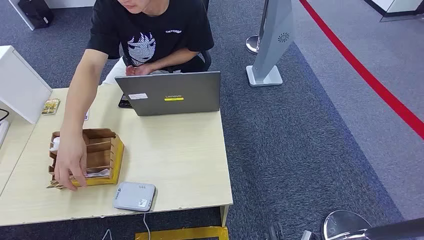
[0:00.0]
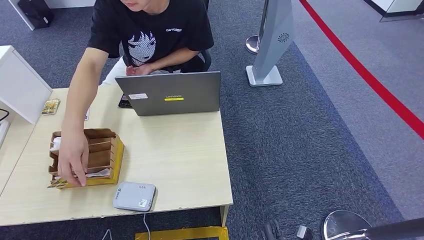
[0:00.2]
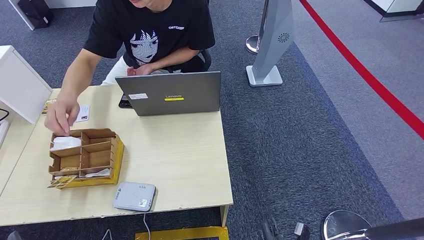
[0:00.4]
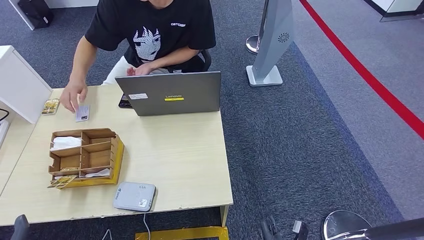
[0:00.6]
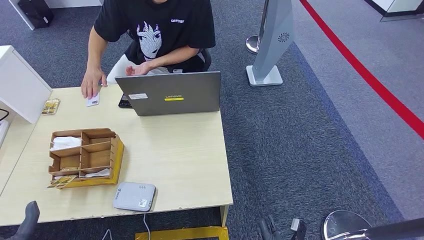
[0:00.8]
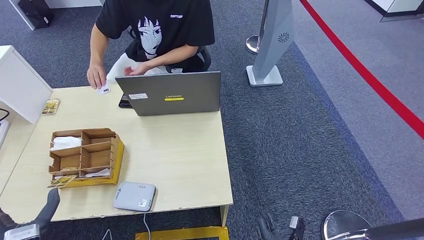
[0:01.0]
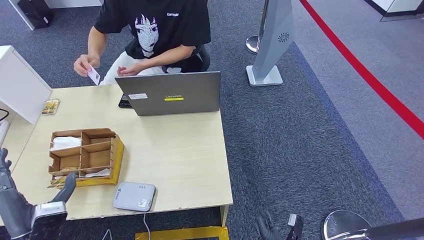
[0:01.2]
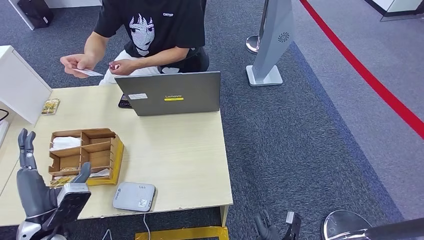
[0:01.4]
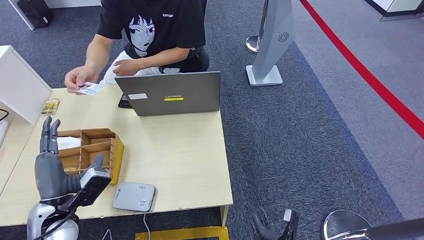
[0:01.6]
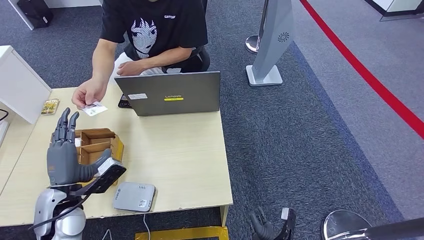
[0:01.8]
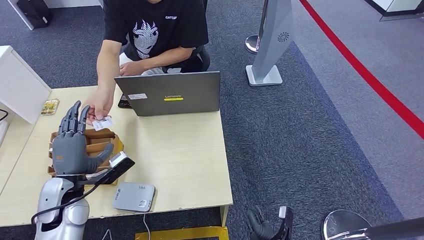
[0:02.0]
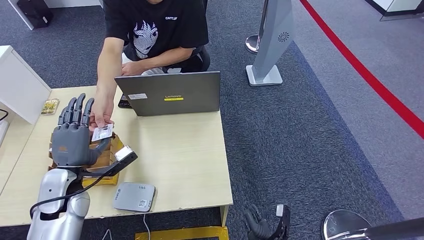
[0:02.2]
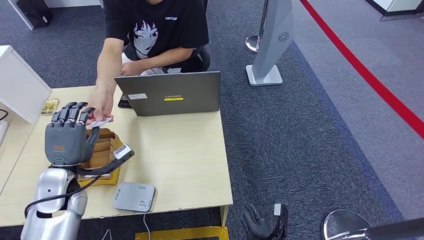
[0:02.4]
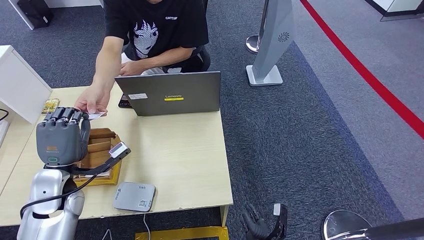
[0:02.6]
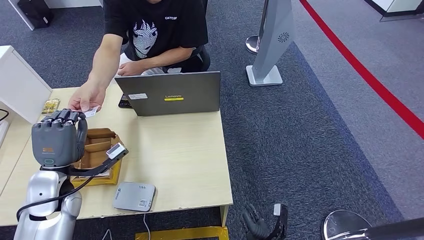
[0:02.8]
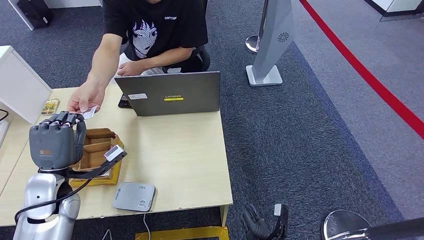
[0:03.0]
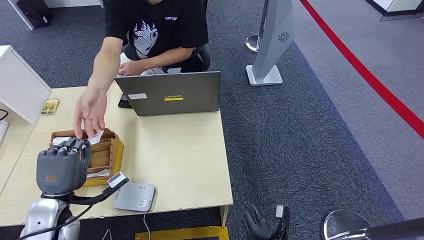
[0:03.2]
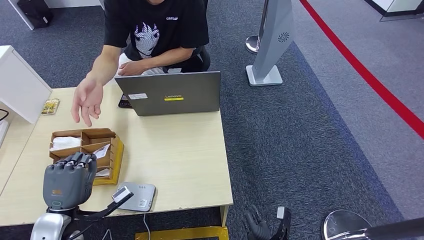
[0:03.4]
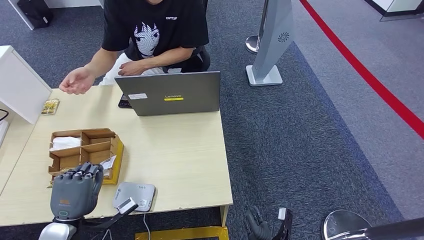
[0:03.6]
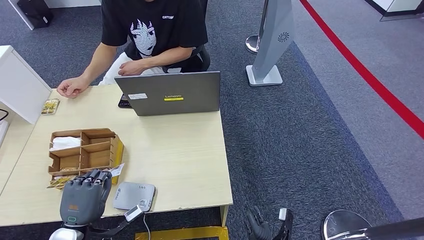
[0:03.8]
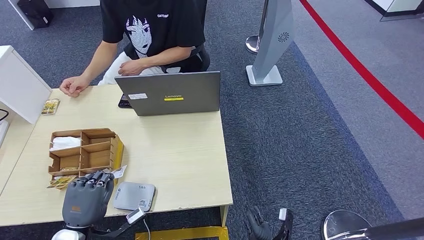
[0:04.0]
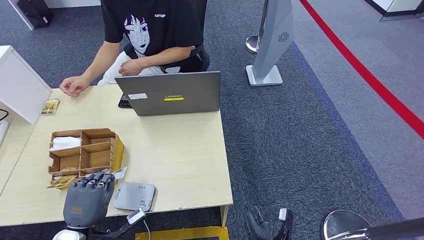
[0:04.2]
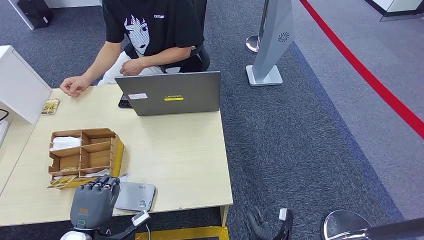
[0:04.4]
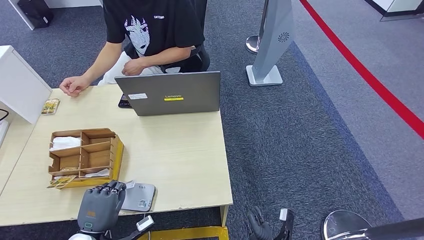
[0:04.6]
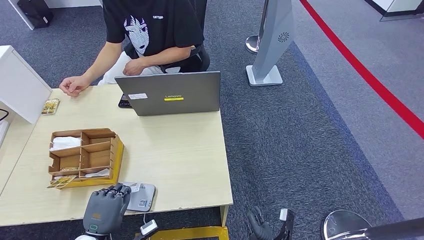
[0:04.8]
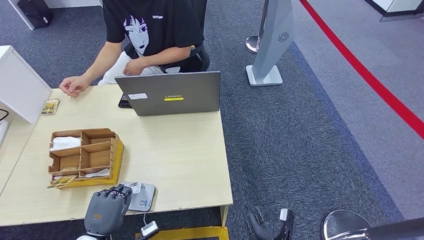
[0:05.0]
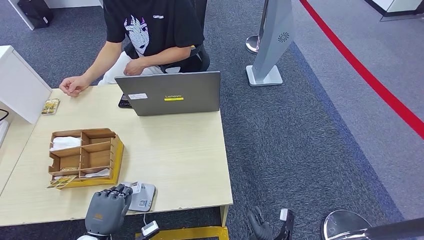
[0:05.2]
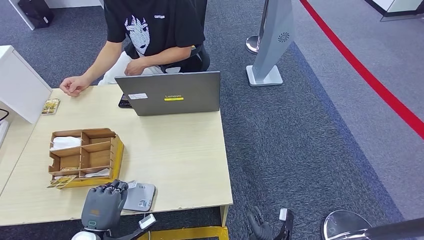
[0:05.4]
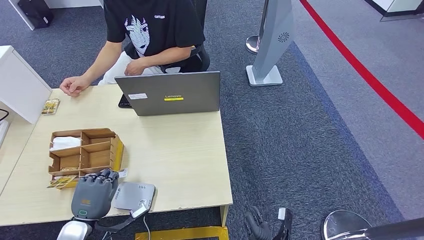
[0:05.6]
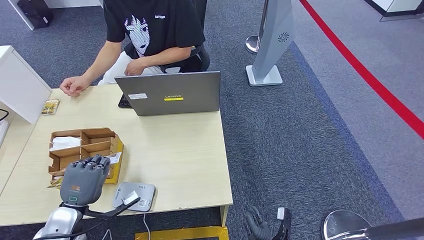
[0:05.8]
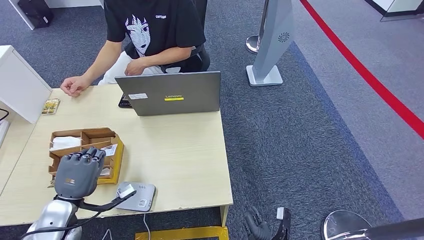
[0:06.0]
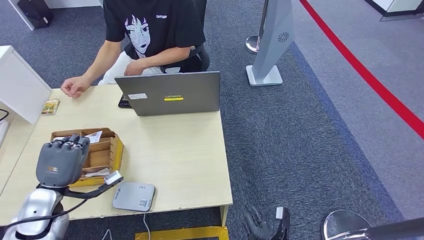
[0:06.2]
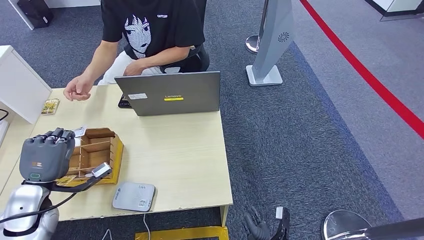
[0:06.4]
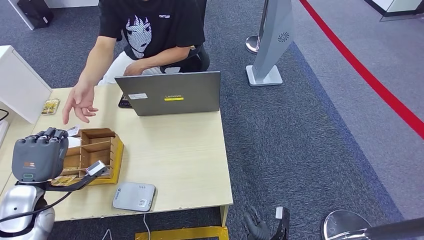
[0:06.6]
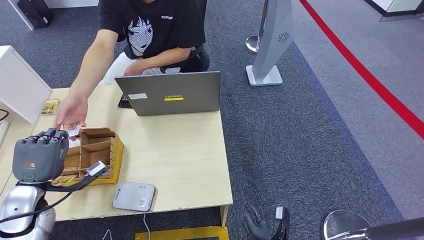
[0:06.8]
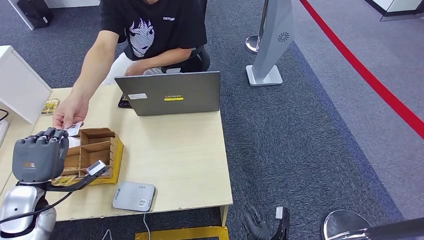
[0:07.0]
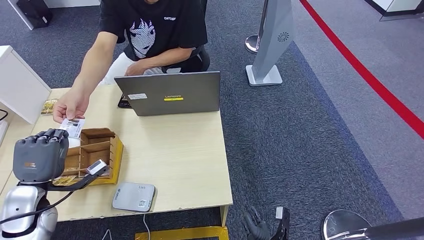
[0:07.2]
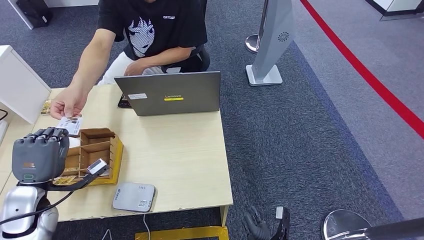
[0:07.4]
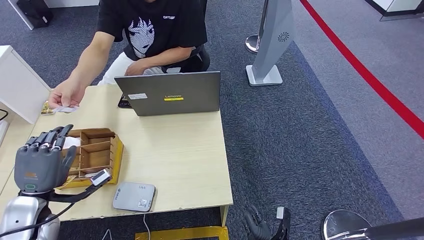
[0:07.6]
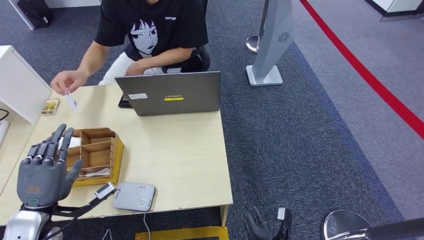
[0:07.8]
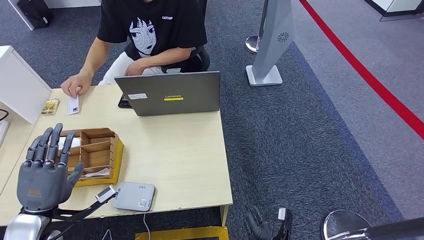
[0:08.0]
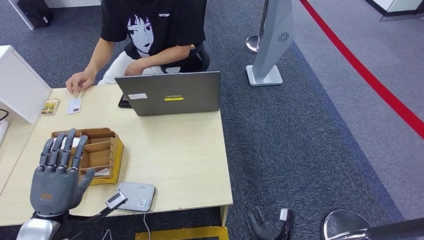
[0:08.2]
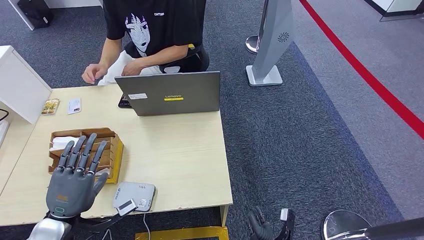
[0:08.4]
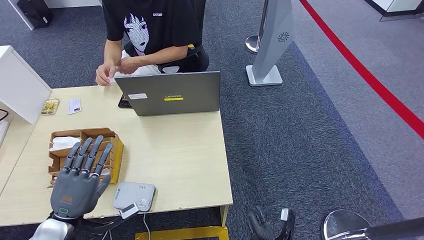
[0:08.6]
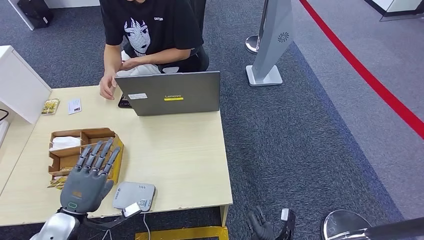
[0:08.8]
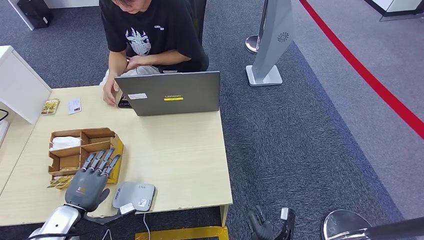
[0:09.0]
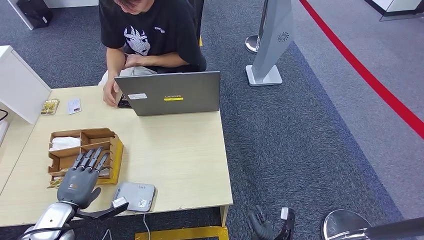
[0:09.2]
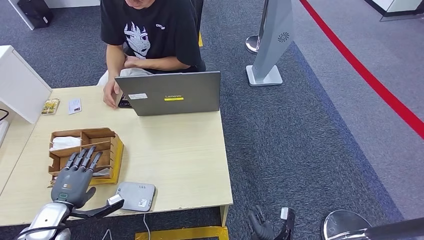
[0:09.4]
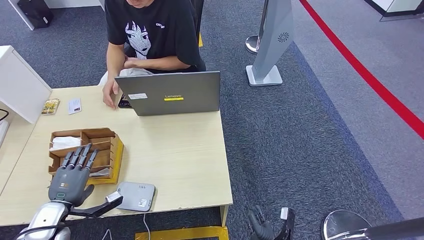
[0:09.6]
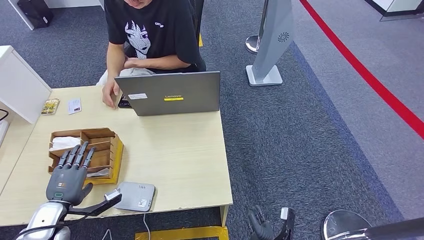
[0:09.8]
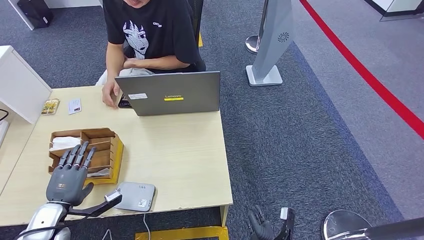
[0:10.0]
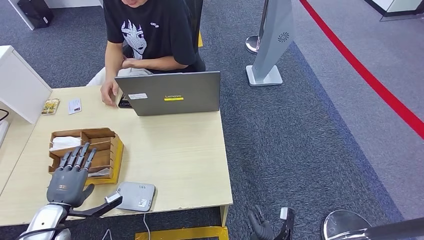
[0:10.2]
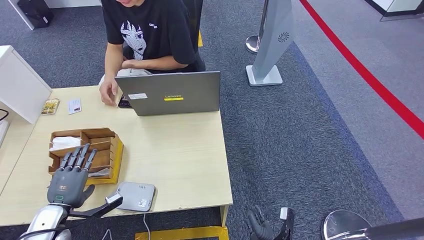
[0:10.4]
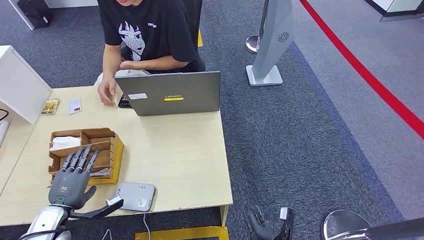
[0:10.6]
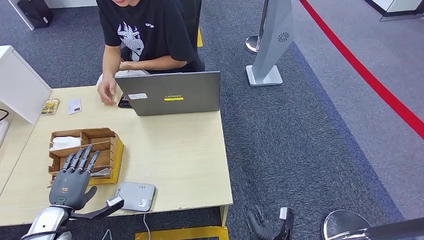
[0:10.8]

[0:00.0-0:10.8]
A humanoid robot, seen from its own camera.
Step, 0:00.0 to 0:03.4: Take the ID card from the person's hand.
Step, 0:03.6 to 0:05.8: Place the ID card on the card reader.
Step, 0:06.0 to 0:08.4: Hand the ID card to the person.
0:01.6 to 0:03.0: The left hand goes approximately 5 cm forward.
0:03.0 to 0:04.6: The left hand travels downward and backward by about 15 cm.
0:04.6 to 0:06.2: The left hand travels forward, upward and to the left by approximately 15 cm.
0:06.2 to 0:07.8: The hands make only small movements.
0:07.8 to 0:09.2: The left hand moves downward, approximately 10 cm.
0:09.2 to 0:10.8: The hands stay close to where they were, moving slightly.

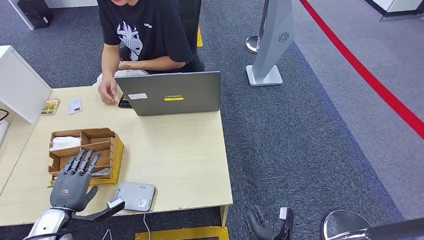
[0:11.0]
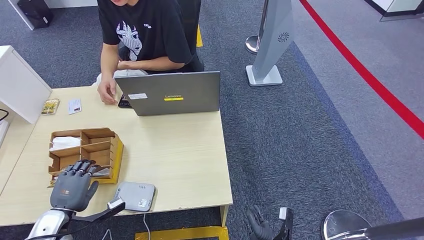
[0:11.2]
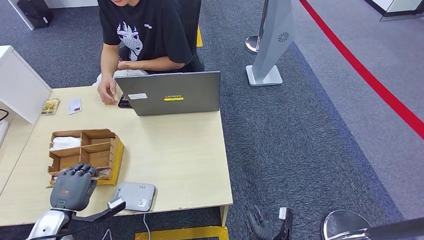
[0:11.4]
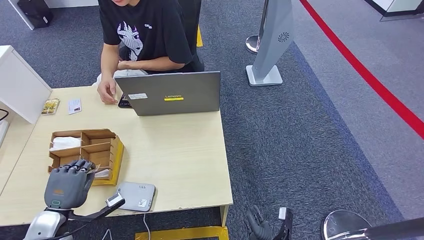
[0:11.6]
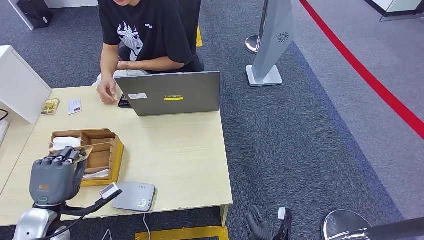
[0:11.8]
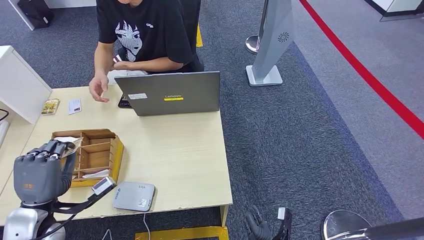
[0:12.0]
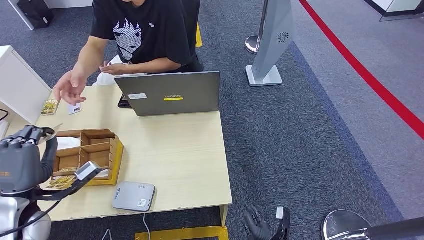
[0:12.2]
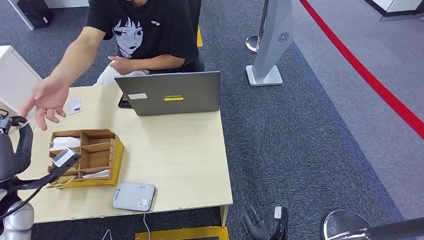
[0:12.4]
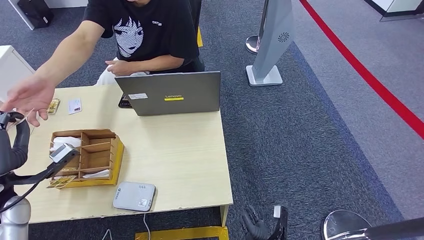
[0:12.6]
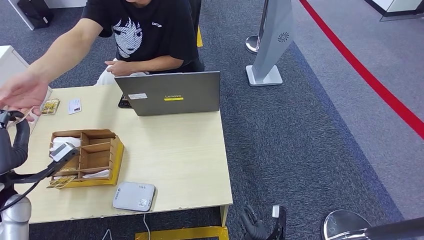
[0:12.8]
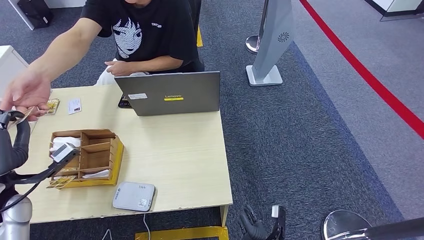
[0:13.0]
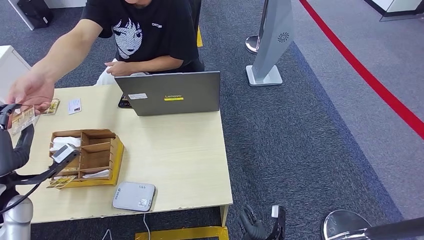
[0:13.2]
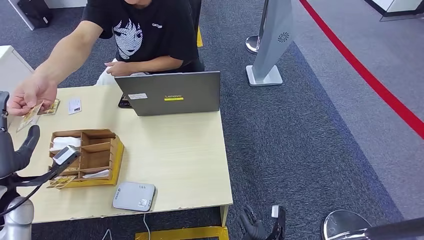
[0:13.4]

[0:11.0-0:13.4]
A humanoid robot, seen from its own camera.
Step, 0:12.4 to 0:13.2: Hand the room key to the person.
0:11.0 to 0:12.2: The left hand heads upward, covering about 15 cm.
0:12.2 to 0:13.4: The hands stay close to where they were, moving slightly.

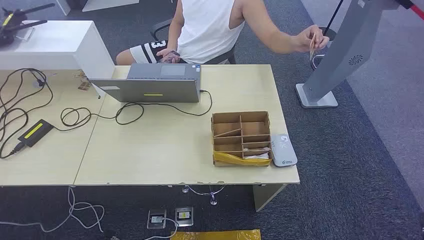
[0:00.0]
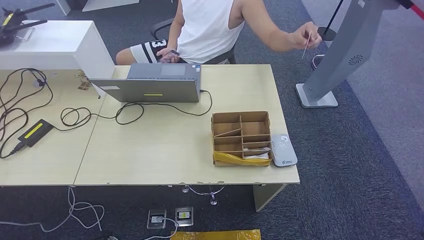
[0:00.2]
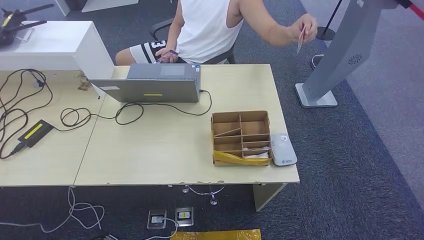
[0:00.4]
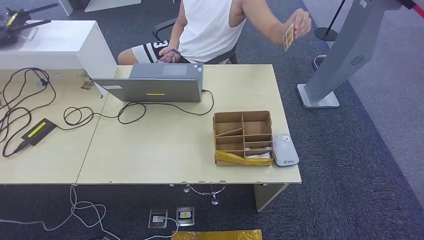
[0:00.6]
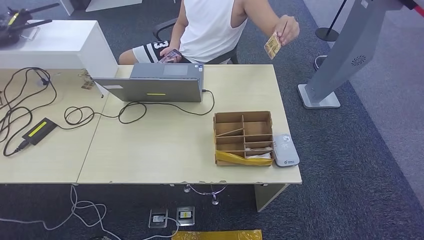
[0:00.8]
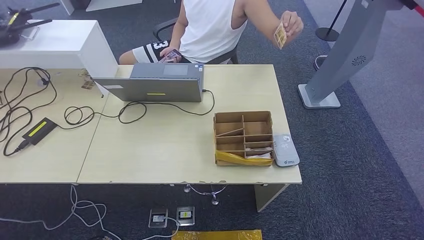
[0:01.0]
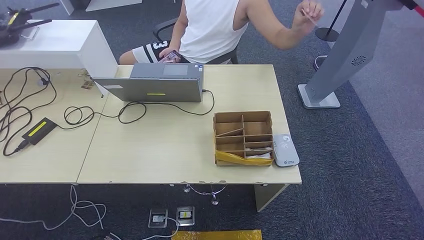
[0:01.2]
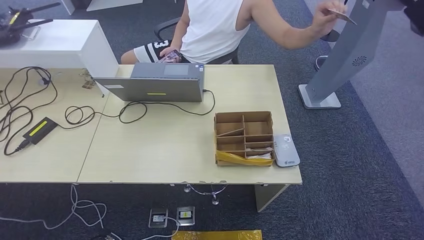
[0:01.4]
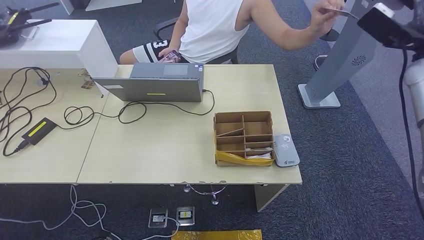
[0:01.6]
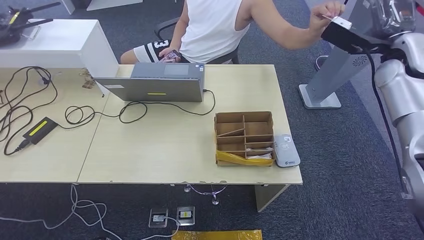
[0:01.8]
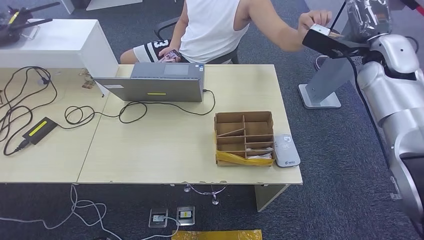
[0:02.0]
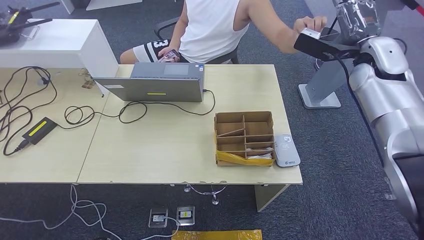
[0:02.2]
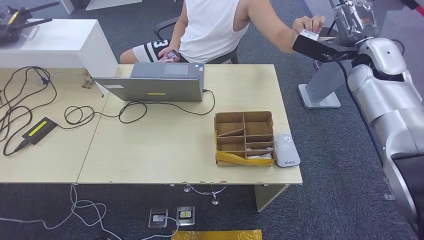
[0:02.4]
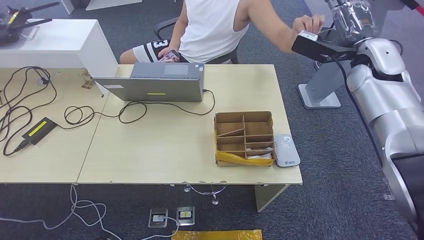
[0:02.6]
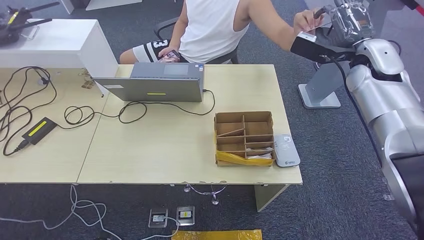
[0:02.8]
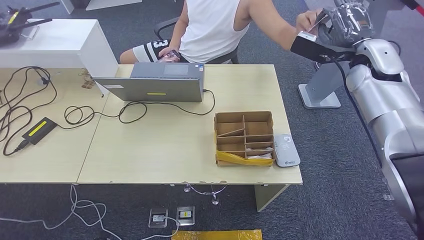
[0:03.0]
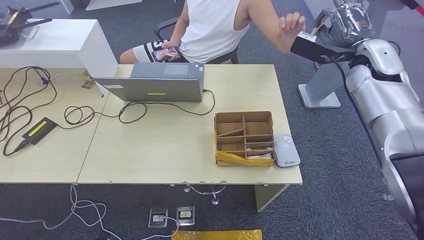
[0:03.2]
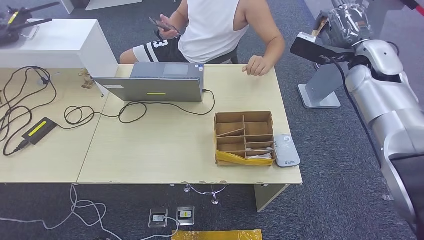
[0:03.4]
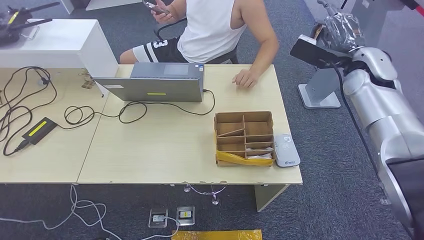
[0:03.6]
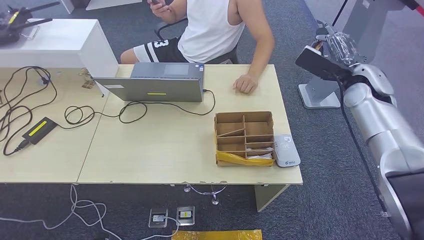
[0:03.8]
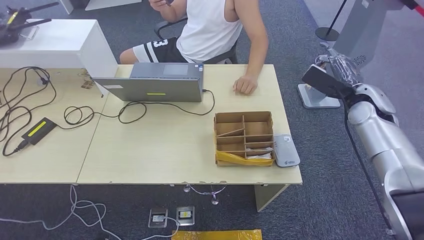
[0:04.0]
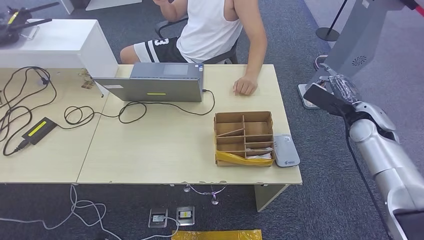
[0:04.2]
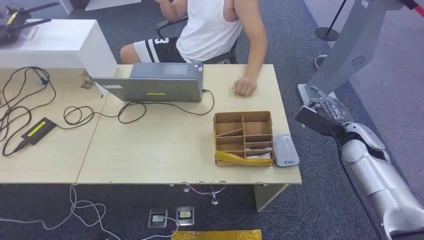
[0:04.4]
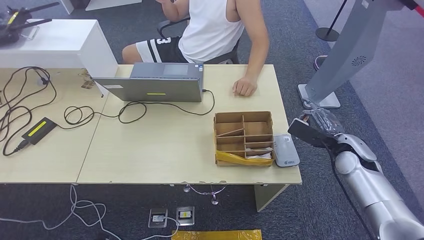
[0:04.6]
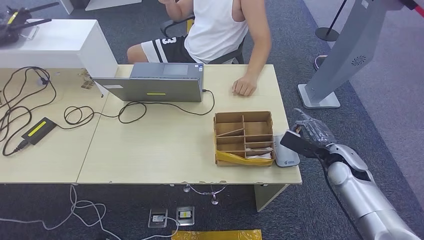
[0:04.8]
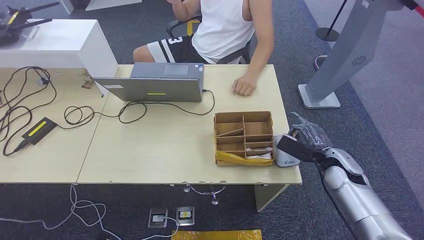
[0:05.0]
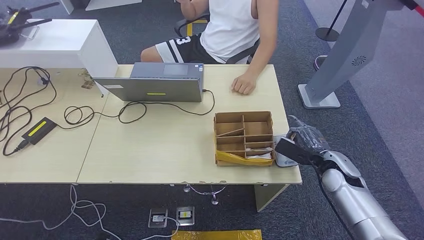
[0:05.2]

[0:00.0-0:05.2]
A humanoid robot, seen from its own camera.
Step, 0:00.0 to 0:03.6: Take the ID card from the person's hand.
0:01.8 to 0:03.4: The right hand goes approximately 5 cm to the left.
